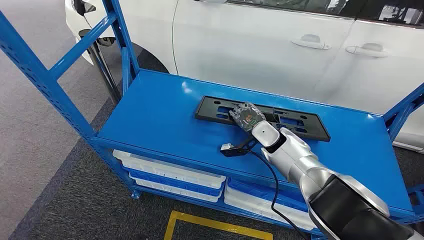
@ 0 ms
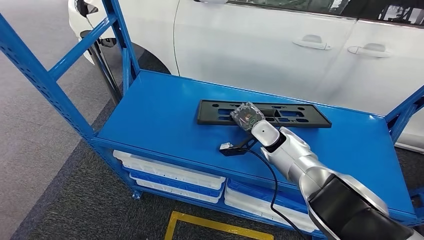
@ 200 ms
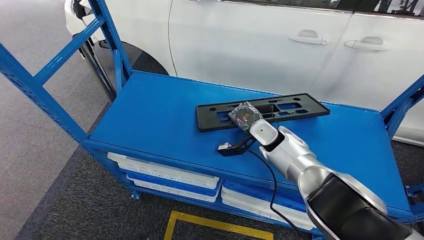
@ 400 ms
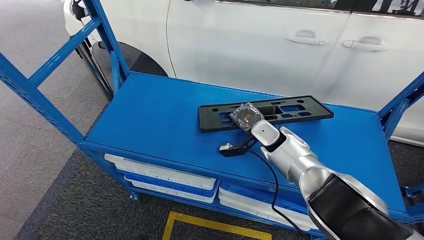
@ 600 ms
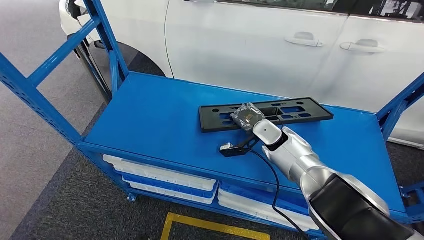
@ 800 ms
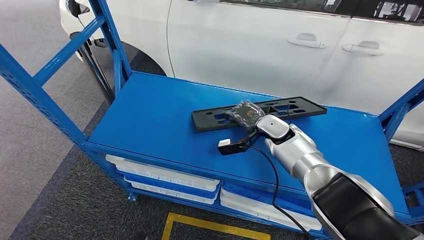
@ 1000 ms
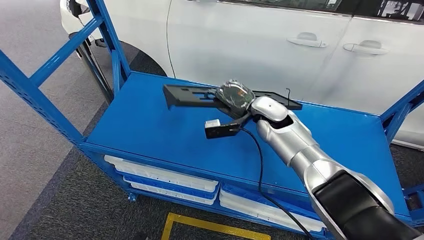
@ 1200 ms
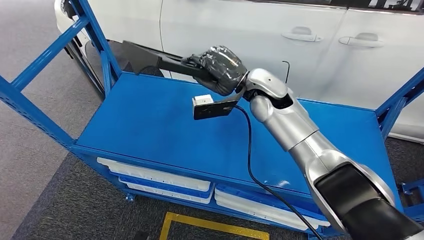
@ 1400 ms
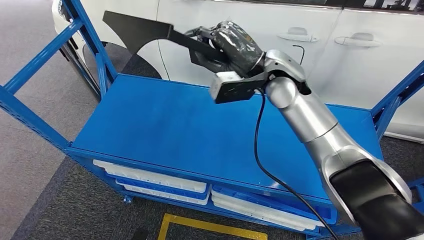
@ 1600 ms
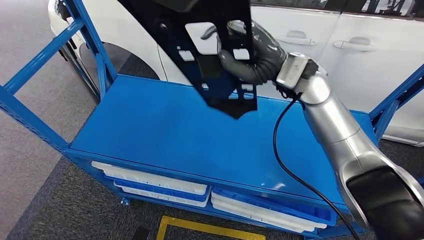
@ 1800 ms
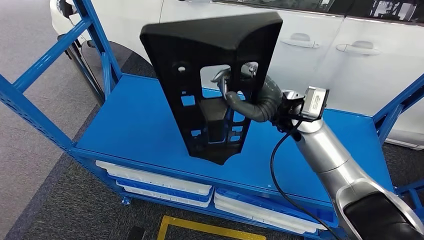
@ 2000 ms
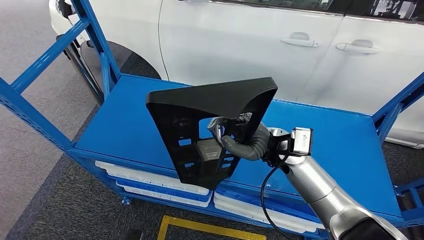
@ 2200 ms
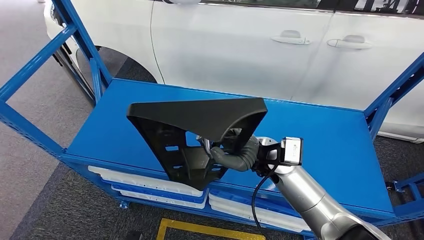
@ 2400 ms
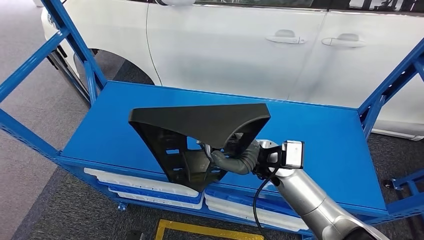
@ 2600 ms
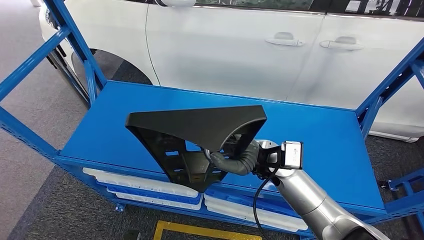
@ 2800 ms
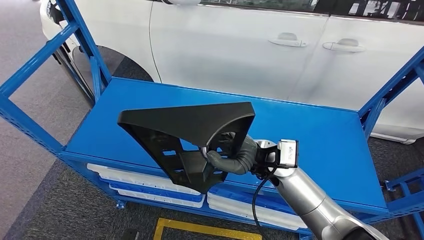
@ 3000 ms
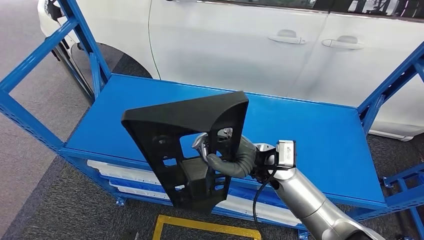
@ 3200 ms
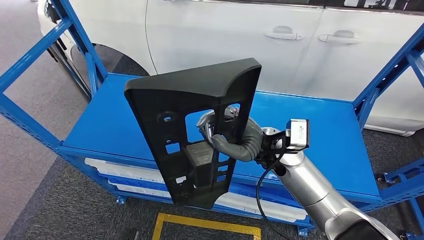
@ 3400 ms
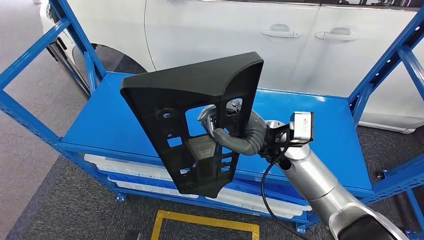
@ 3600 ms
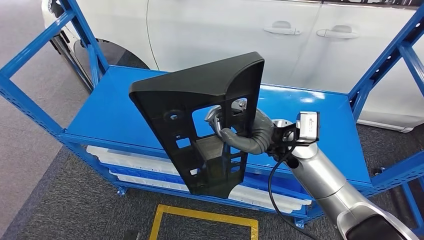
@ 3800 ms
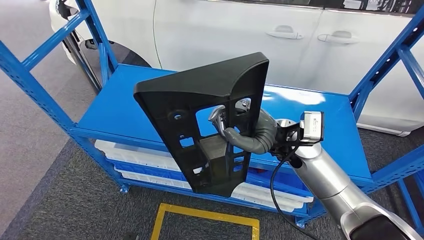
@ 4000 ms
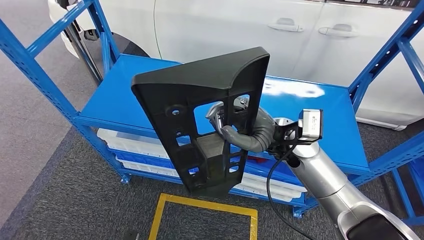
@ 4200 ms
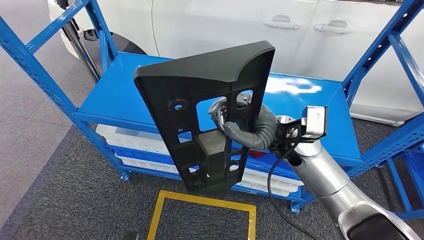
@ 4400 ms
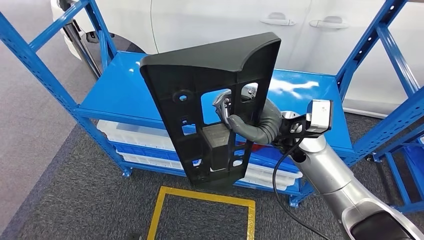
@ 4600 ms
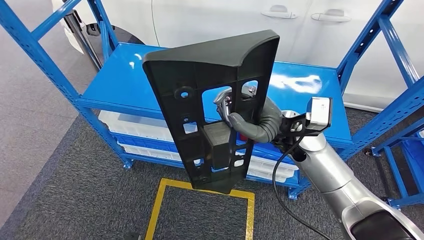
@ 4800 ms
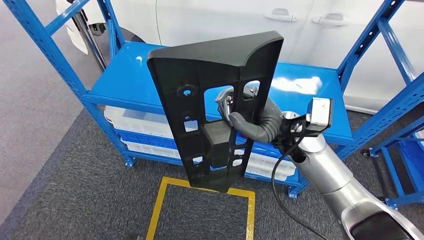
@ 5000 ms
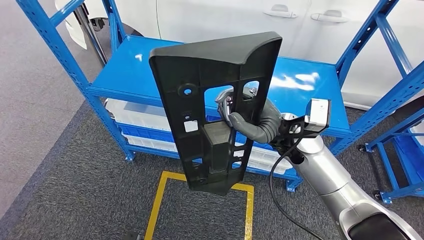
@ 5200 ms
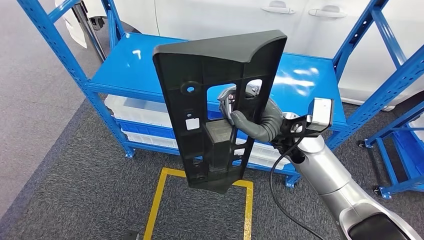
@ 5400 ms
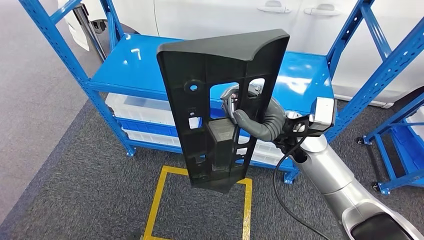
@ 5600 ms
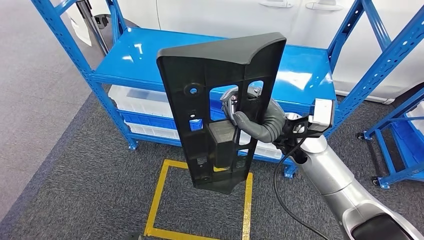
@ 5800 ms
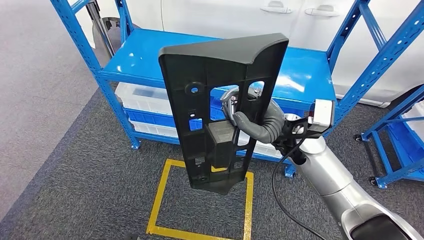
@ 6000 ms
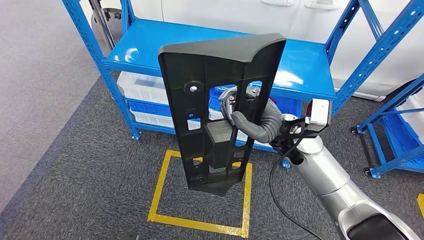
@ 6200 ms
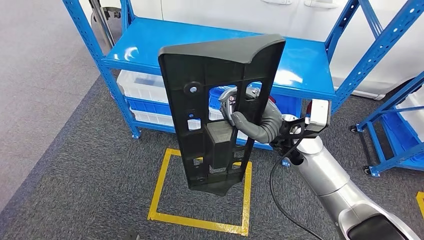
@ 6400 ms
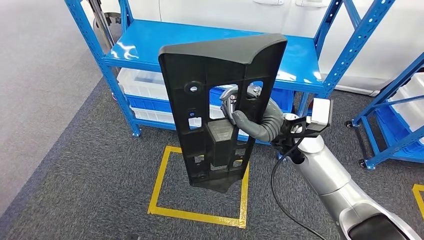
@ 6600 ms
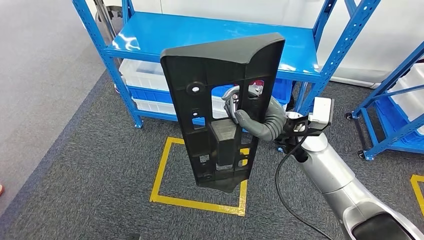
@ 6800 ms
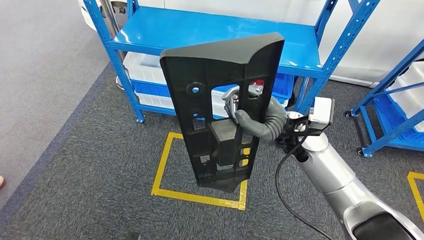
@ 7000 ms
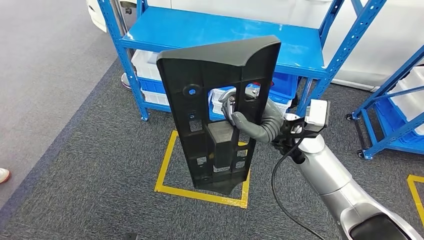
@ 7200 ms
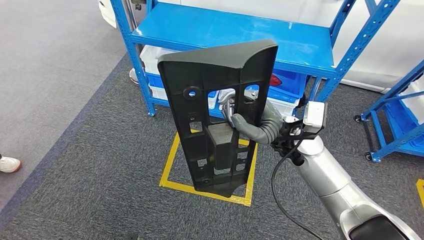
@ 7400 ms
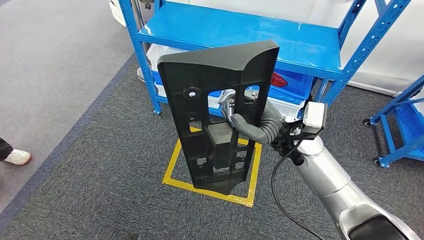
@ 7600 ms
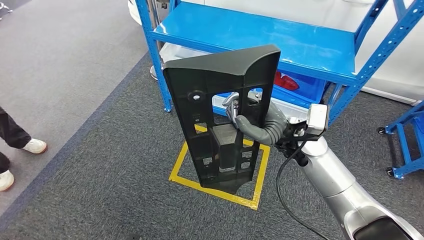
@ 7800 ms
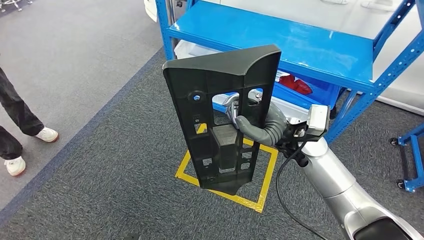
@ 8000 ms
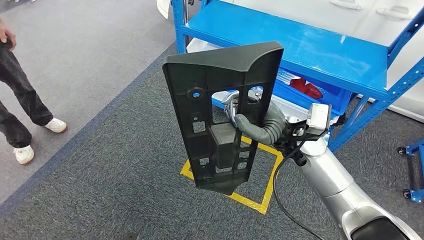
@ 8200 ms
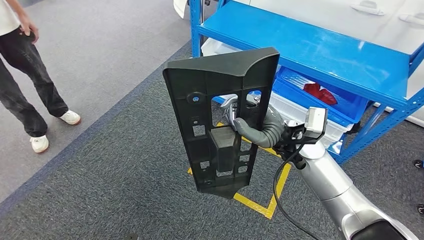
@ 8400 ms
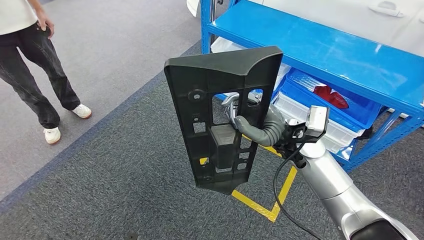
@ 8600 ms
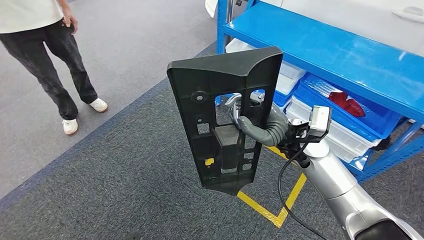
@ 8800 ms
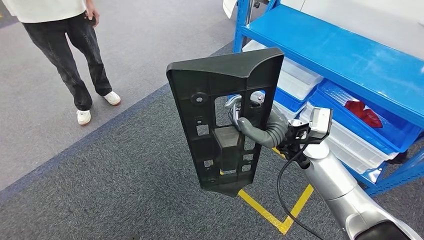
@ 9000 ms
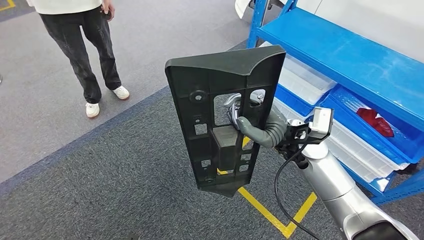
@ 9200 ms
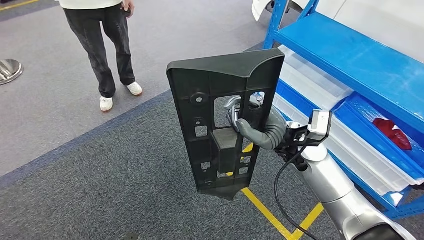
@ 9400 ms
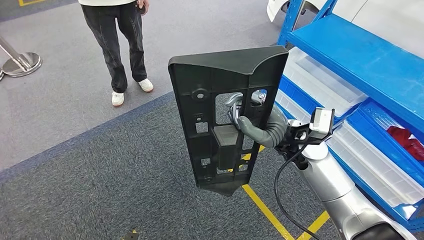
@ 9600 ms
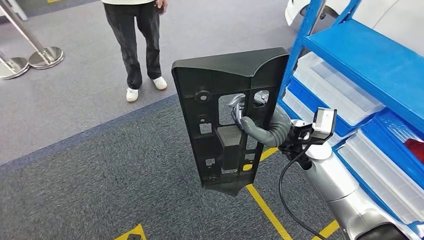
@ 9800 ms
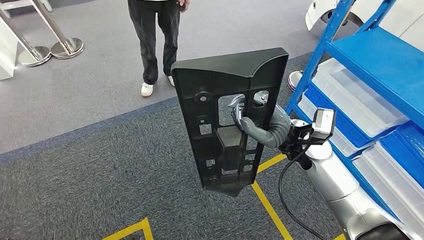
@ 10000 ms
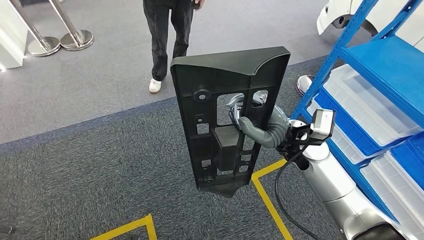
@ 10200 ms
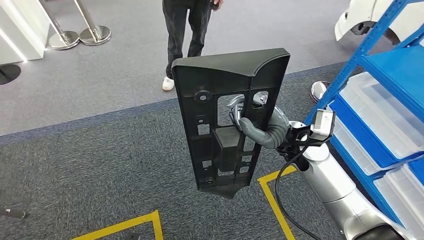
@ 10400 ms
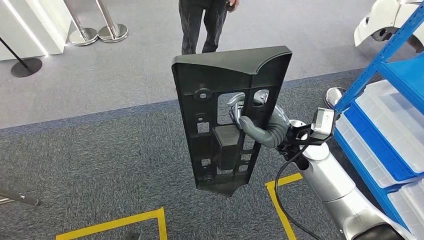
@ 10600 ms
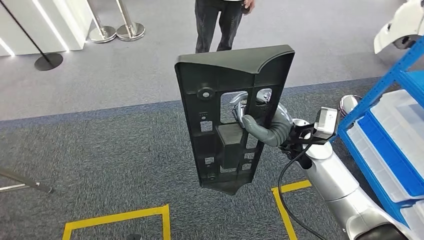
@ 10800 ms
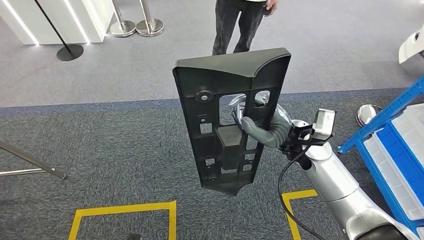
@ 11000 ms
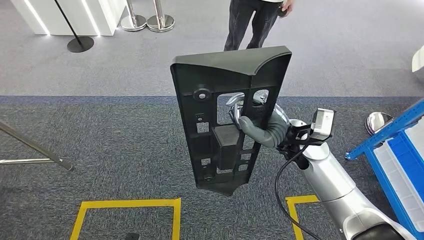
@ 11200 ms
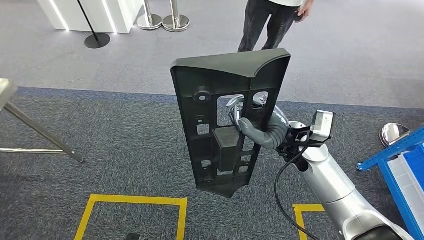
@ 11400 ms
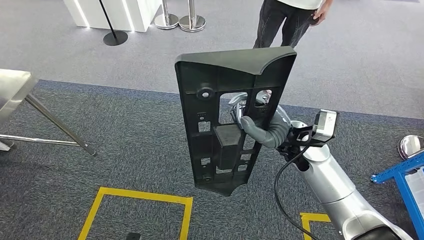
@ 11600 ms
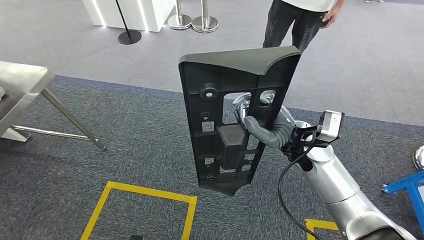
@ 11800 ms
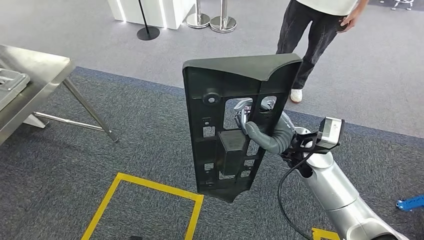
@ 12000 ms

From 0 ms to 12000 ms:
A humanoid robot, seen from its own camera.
Step, from 0 ms to 4400 ms: Pick up the large material from the shelf.

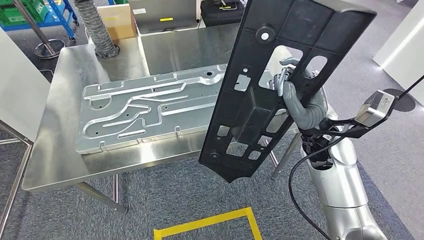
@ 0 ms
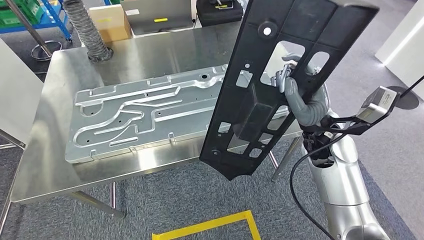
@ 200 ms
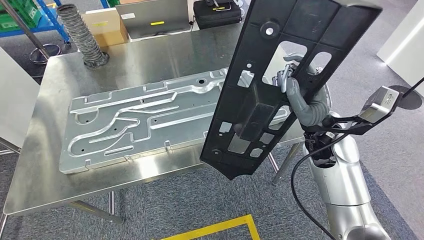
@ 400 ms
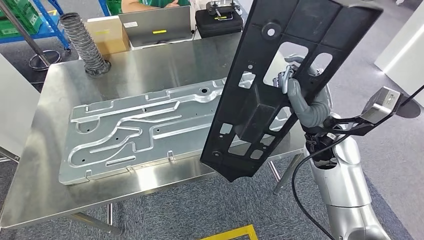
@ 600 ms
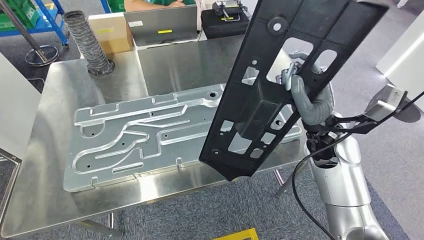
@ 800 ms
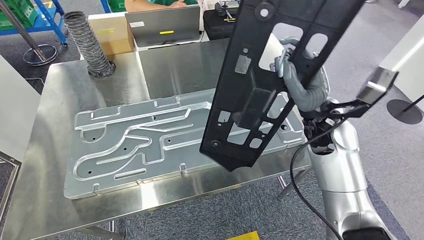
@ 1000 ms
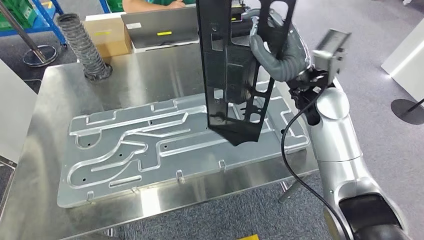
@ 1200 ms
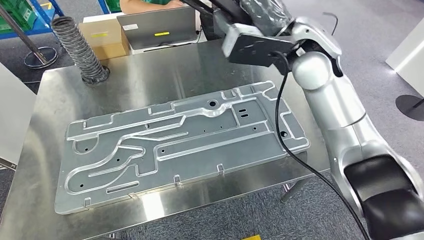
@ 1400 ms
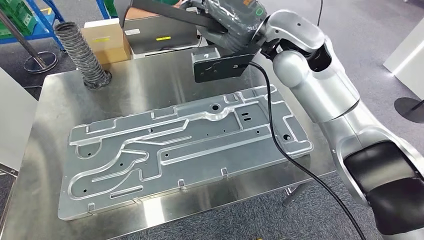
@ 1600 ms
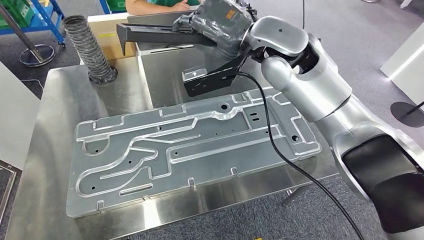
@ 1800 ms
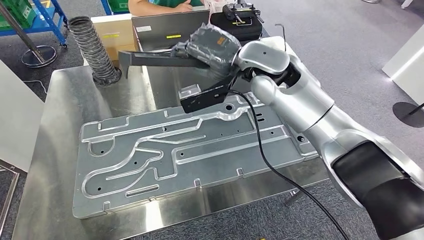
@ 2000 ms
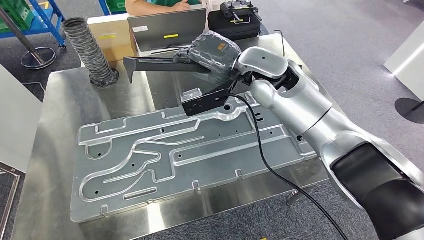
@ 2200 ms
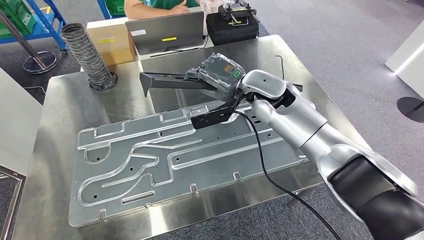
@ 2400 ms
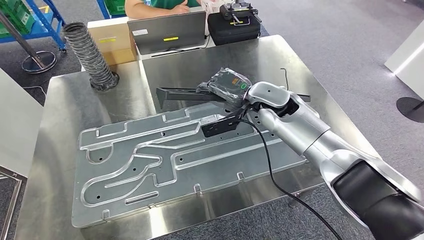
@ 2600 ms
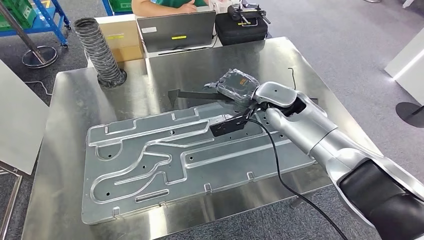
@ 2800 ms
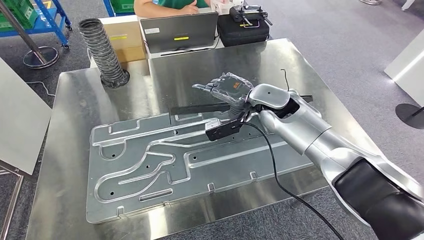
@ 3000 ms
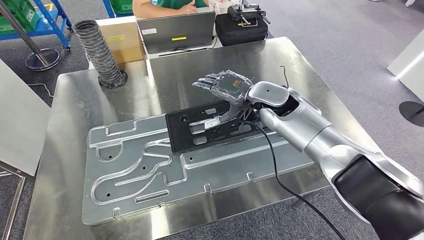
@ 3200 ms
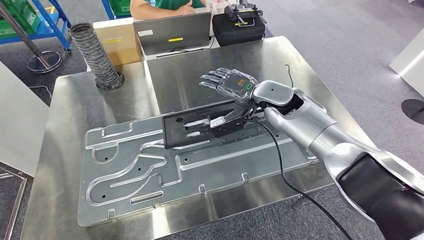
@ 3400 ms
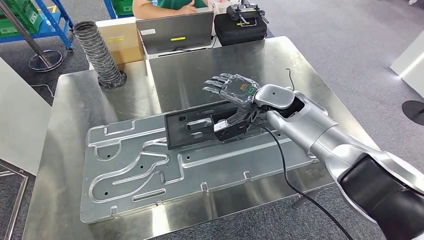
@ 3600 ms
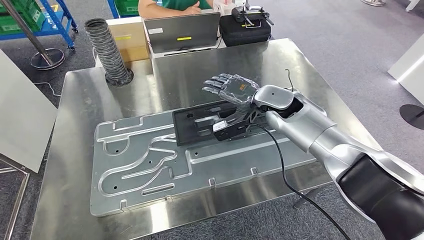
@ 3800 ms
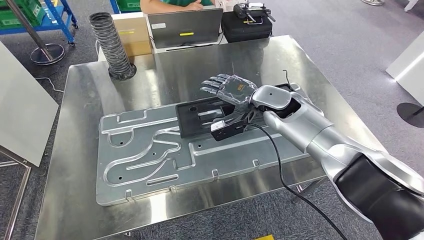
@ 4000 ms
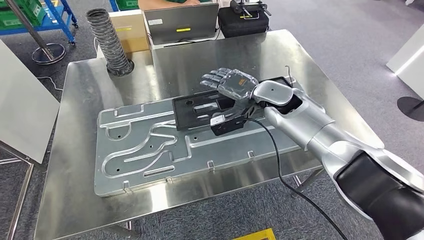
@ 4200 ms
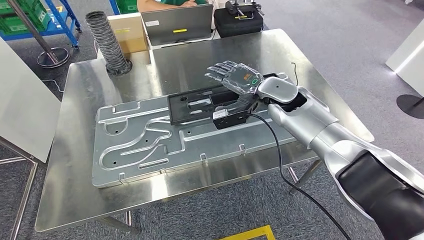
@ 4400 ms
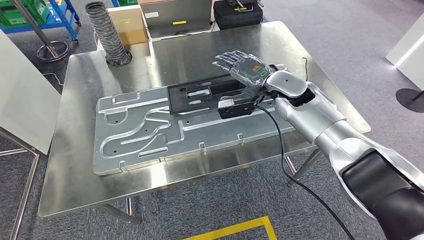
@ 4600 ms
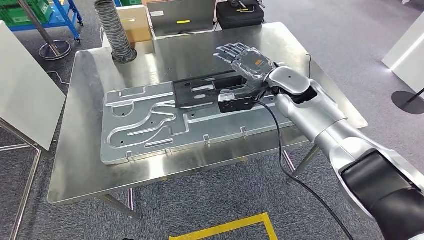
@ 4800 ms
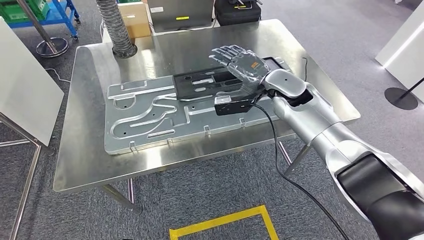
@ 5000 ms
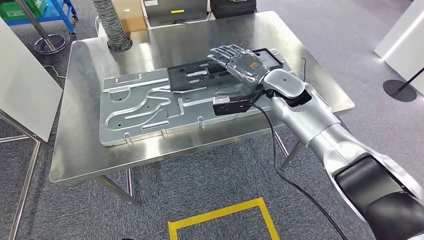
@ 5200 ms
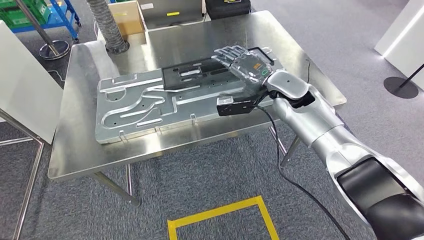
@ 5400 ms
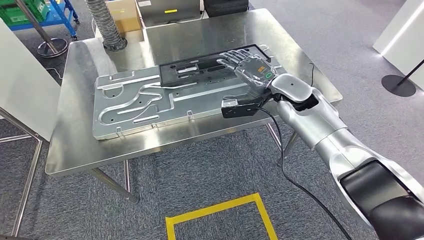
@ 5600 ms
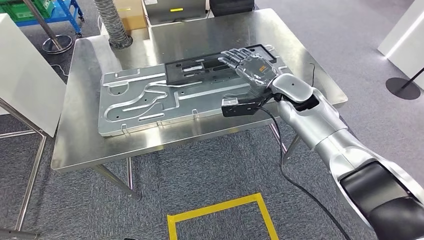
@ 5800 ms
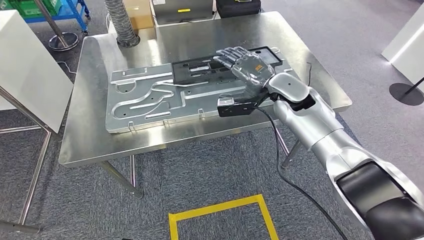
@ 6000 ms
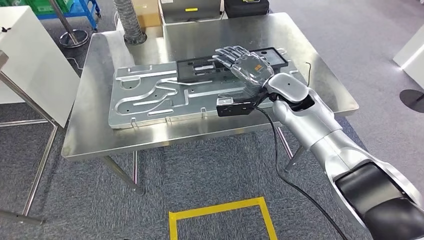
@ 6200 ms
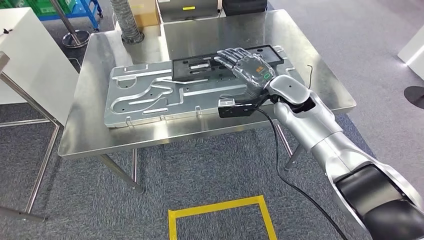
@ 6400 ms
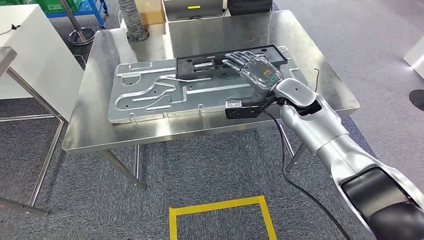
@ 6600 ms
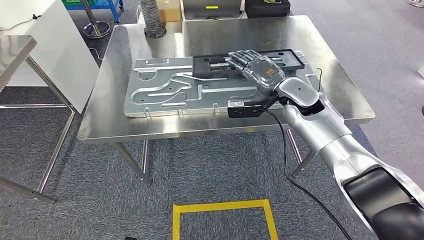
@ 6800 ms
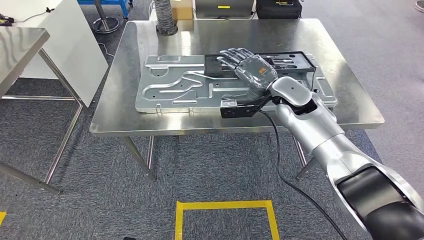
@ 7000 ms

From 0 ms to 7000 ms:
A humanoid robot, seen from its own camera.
Step, from 800 ms to 3800 ms: Insert the large material into the corresponding slot on the workbench.
